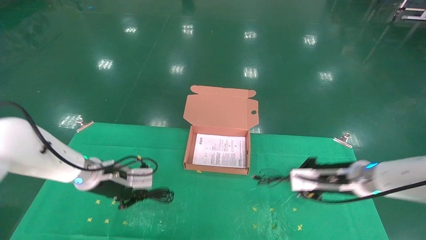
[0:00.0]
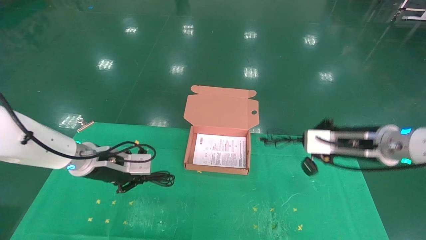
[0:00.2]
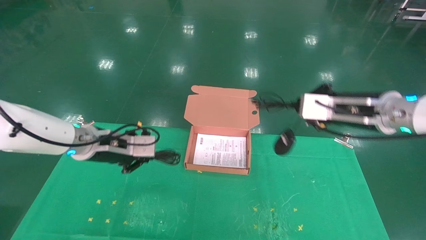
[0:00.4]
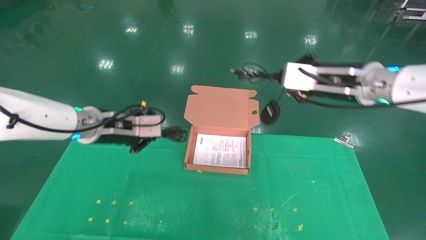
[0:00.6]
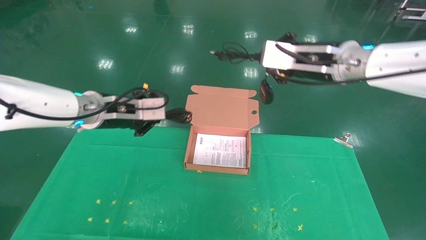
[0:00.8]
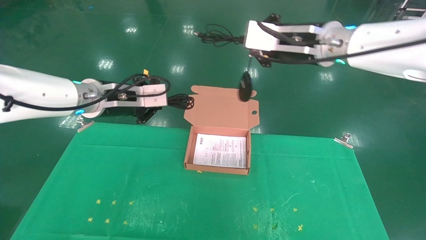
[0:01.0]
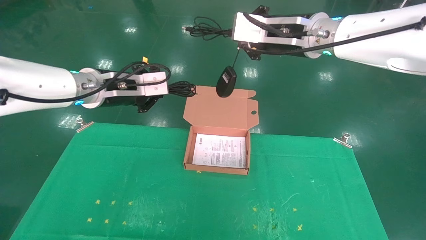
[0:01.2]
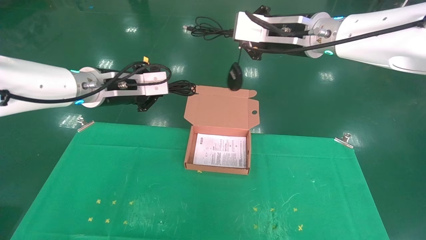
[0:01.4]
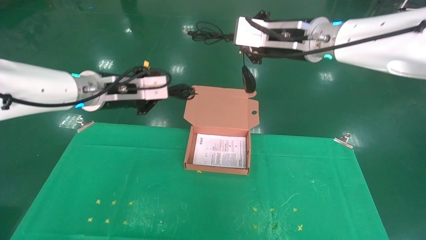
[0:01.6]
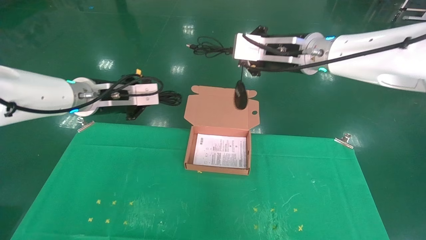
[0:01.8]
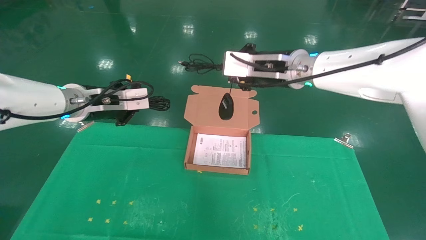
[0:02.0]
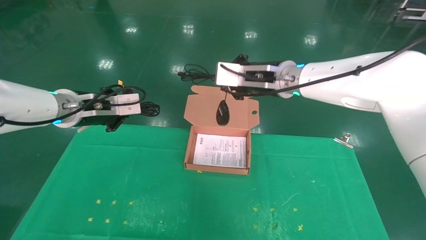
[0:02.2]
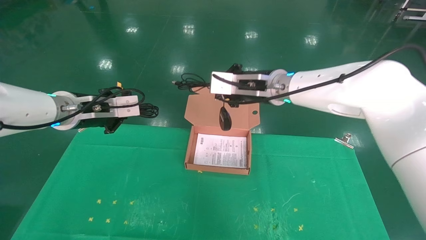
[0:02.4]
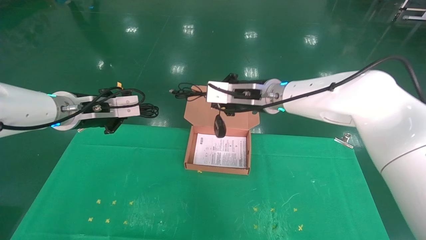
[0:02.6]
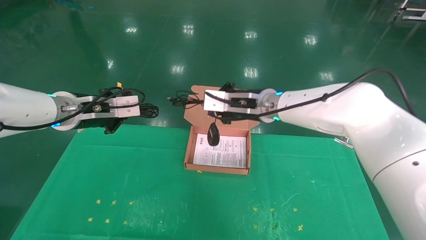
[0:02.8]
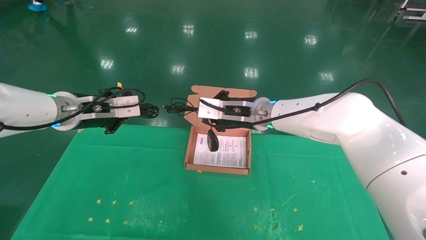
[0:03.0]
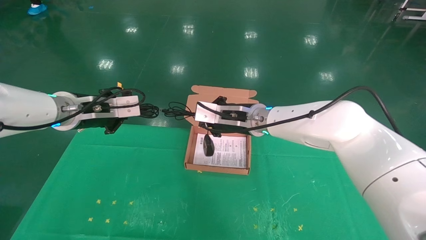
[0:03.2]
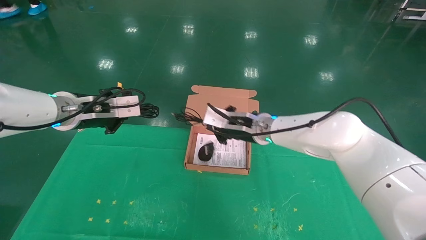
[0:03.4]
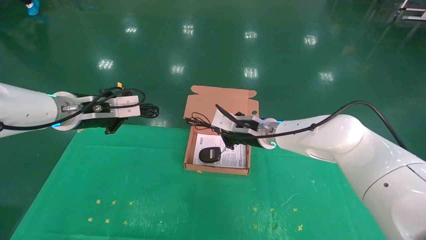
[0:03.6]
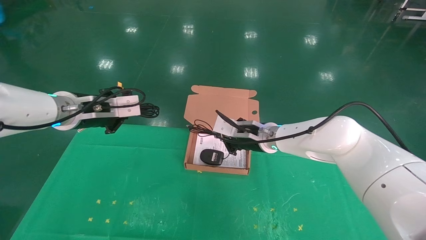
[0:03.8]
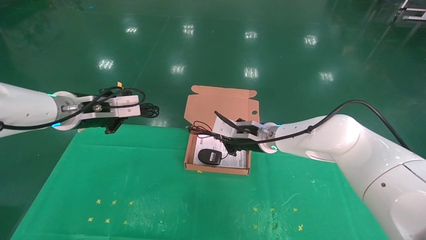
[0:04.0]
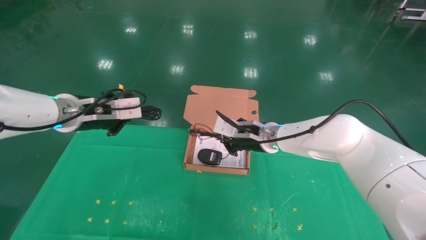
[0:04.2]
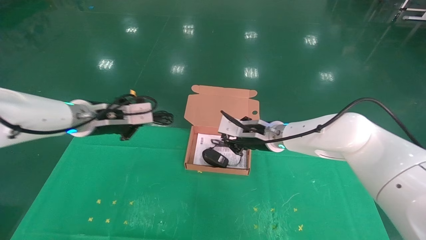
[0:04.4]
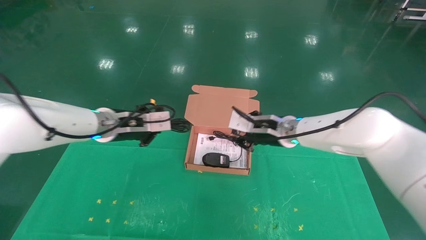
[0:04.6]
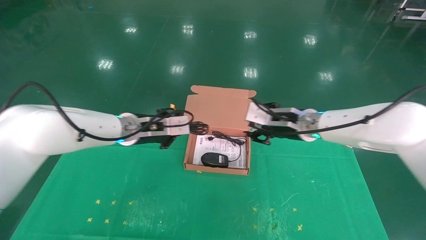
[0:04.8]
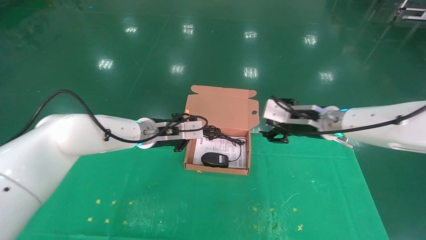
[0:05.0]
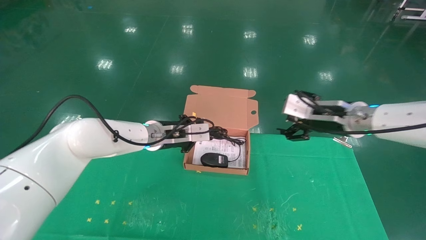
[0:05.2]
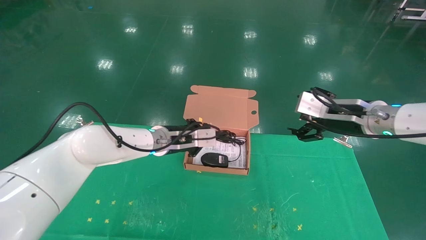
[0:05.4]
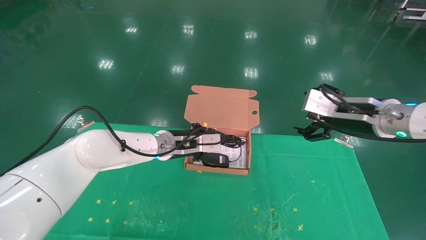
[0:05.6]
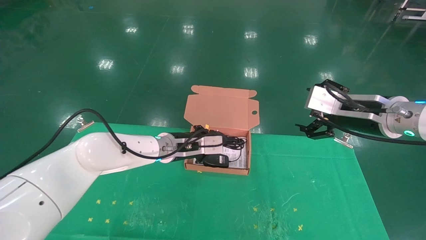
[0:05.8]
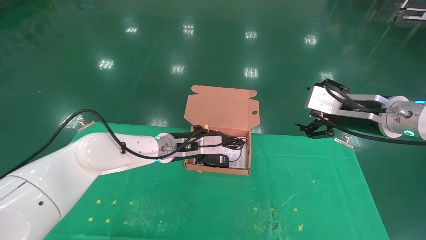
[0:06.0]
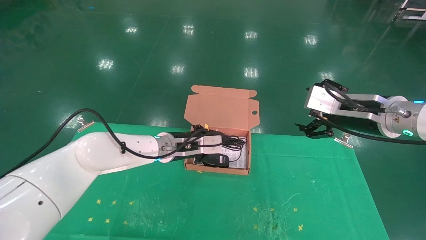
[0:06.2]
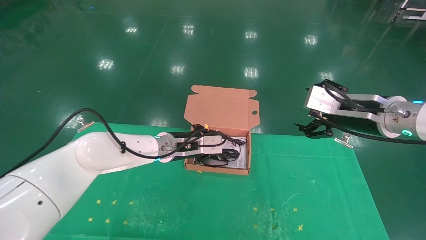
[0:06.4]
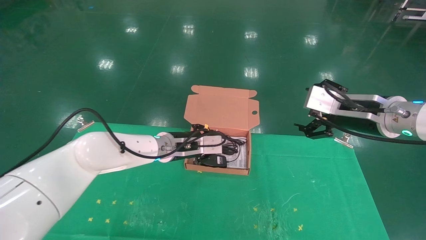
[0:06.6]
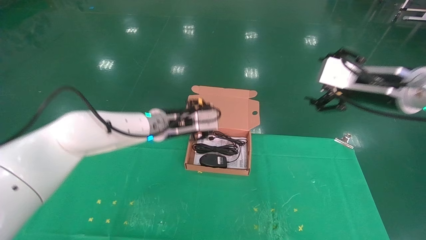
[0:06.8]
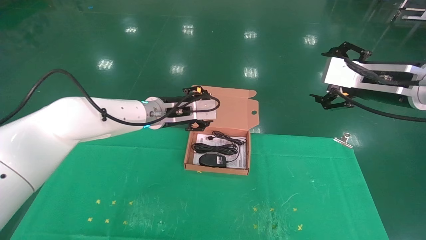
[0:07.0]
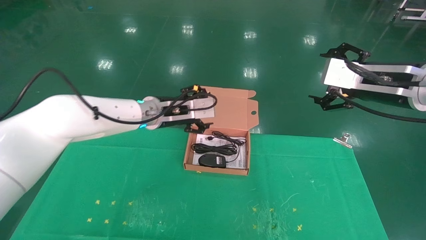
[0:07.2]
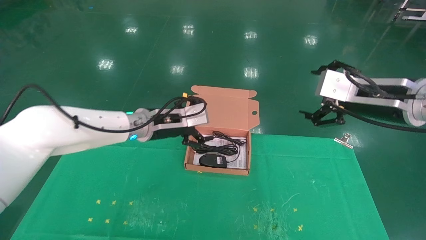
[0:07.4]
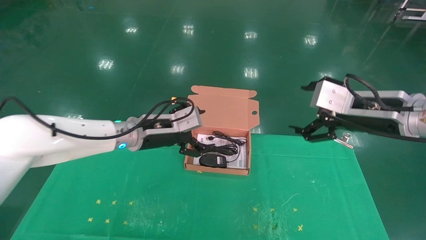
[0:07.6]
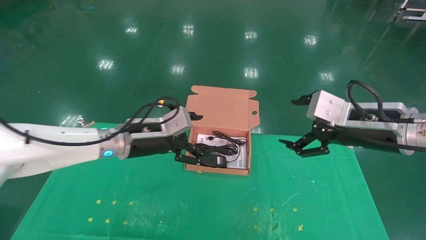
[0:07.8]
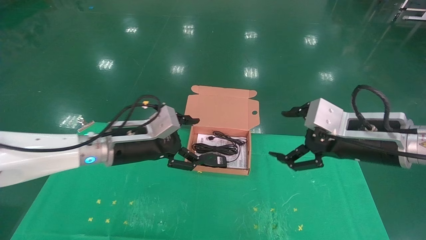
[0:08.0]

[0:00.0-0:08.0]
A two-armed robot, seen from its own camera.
Task of the whole recording: grasp data cable left put into box grasp mouse right put into box.
Step, 0:00.0 to 0:06.4: Place the mouse and power cord into the box.
0:00.0 to 0:01.6: The right gripper is displaced upward and to the left by approximately 25 cm; the left gripper is displaced upward by roughly 15 cm.
0:01.6 to 0:03.2: The right gripper heads downward and to the left, covering roughly 15 cm.
0:03.2 to 0:04.8: The left gripper is displaced to the right, forward and downward by approximately 15 cm; the right gripper moves to the right, roughly 10 cm, and opens.
0:04.8 to 0:06.4: The left gripper moves to the right and downward, some 10 cm, while the right gripper heads to the right and backward, covering approximately 15 cm, and opens its fingers.
0:06.4 to 0:08.0: The right gripper moves backward, roughly 5 cm, and travels upward and back again, roughly 5 cm each way, while the left gripper travels backward and to the left by roughly 15 cm, and opens its fingers.

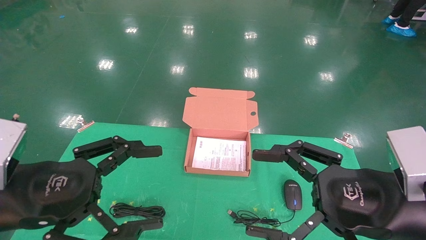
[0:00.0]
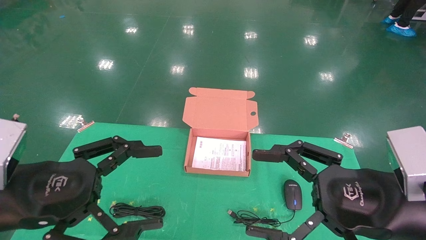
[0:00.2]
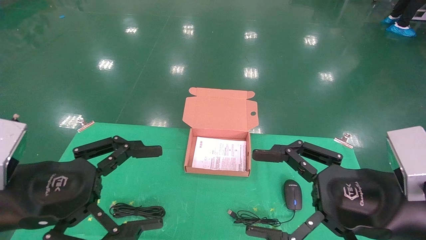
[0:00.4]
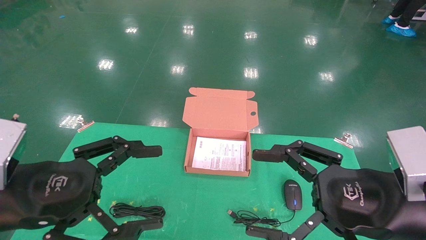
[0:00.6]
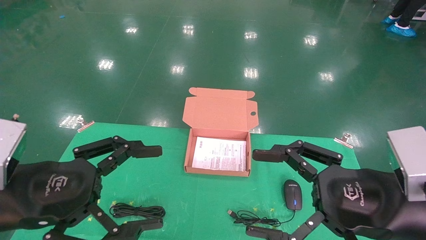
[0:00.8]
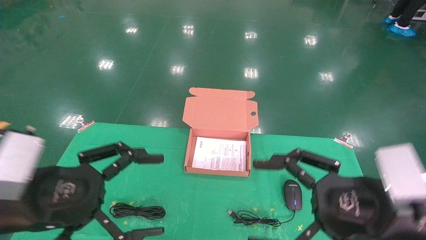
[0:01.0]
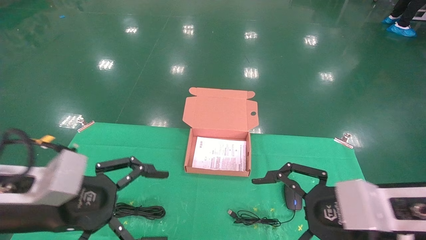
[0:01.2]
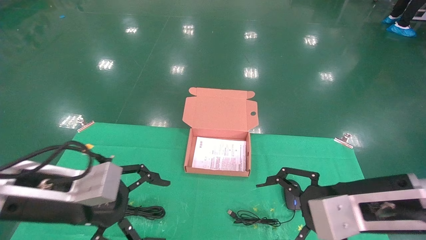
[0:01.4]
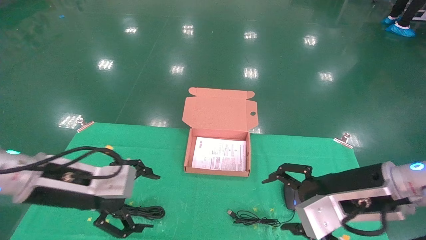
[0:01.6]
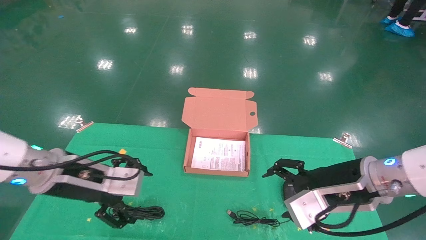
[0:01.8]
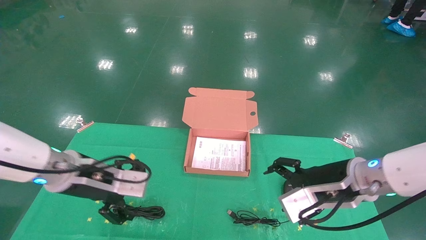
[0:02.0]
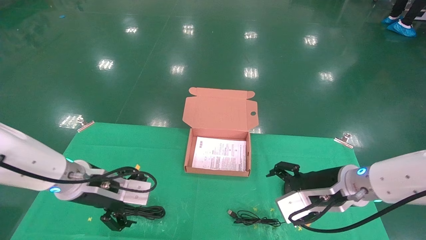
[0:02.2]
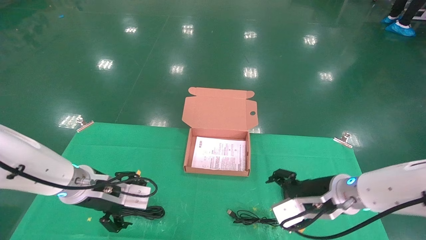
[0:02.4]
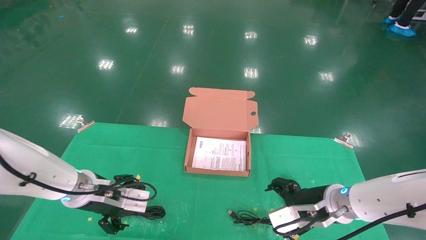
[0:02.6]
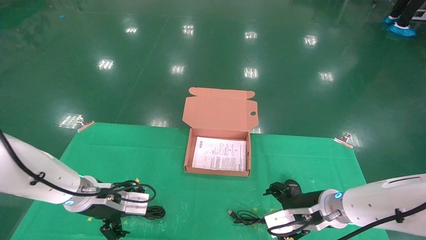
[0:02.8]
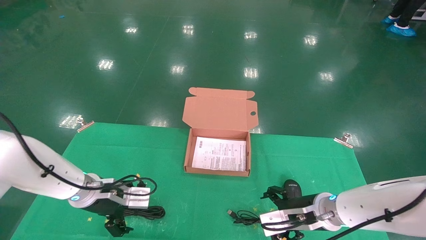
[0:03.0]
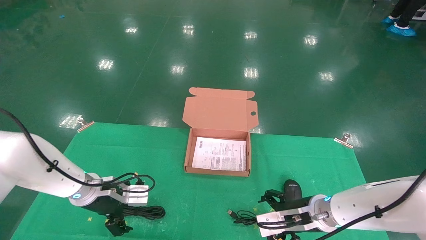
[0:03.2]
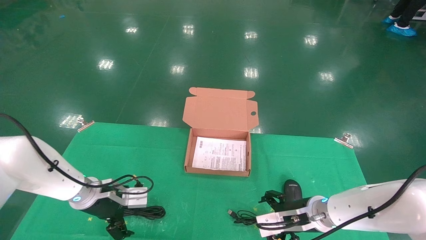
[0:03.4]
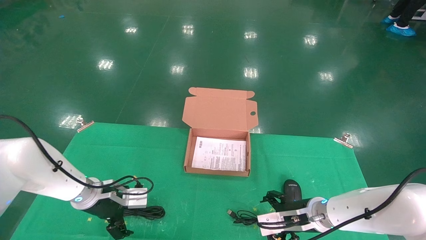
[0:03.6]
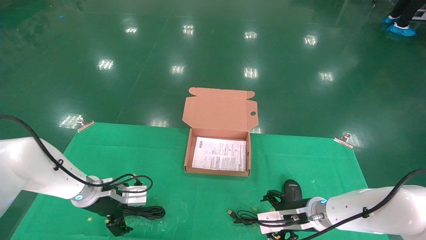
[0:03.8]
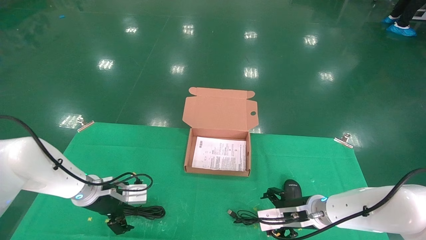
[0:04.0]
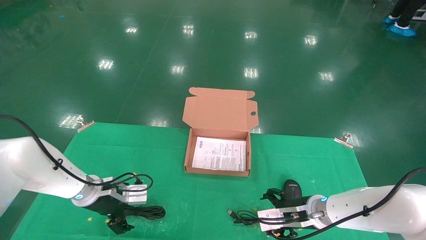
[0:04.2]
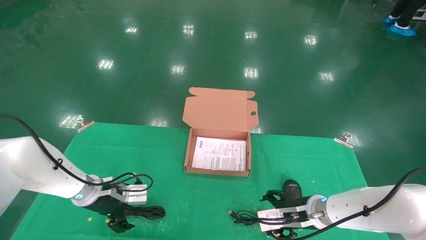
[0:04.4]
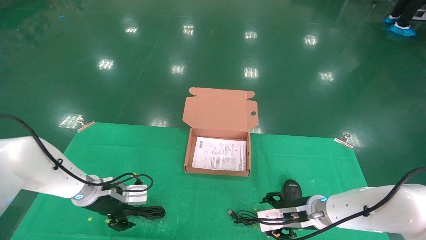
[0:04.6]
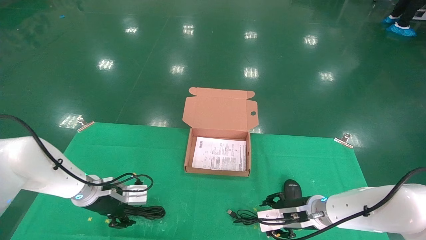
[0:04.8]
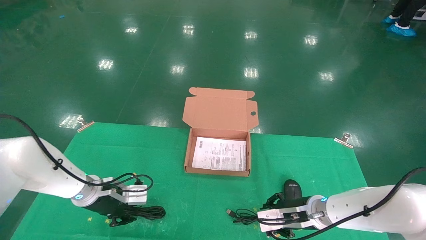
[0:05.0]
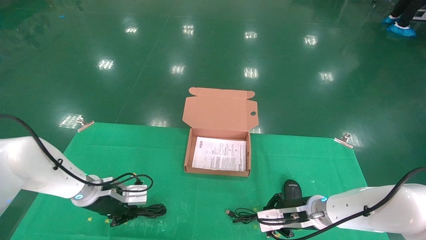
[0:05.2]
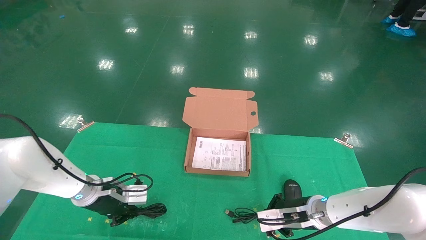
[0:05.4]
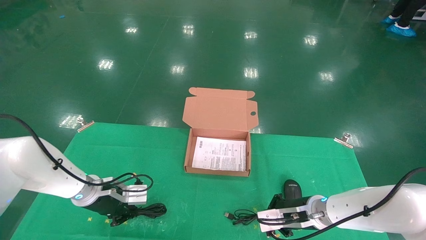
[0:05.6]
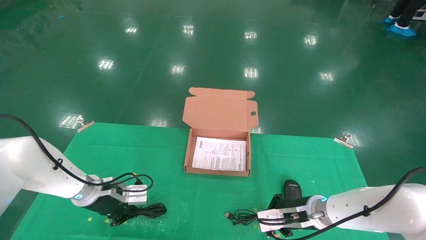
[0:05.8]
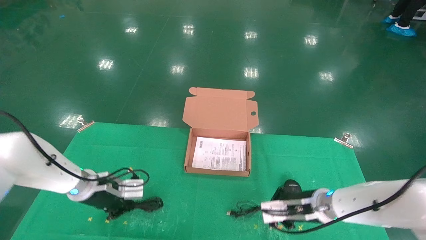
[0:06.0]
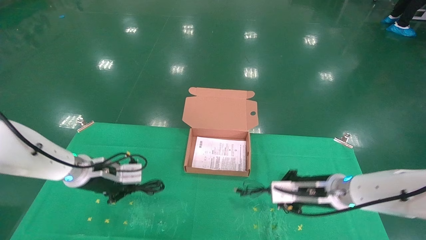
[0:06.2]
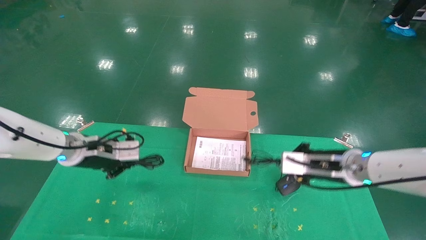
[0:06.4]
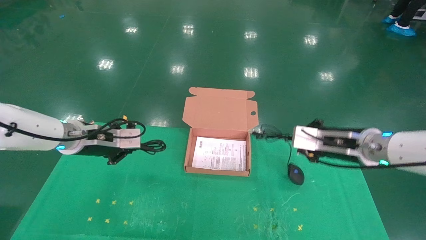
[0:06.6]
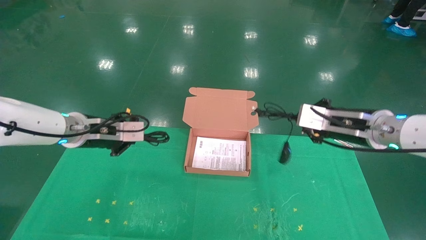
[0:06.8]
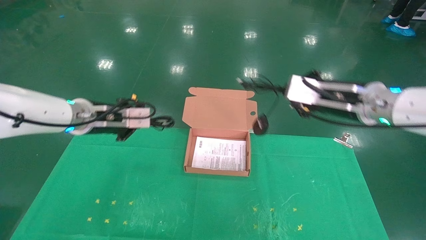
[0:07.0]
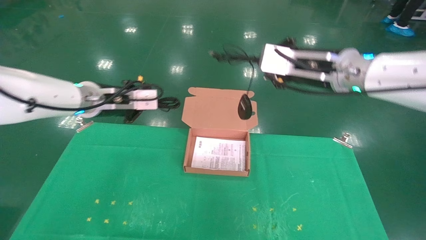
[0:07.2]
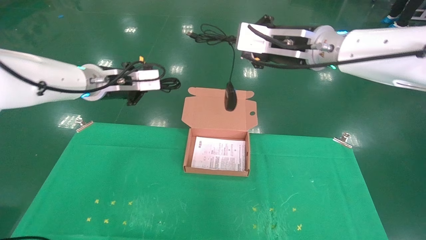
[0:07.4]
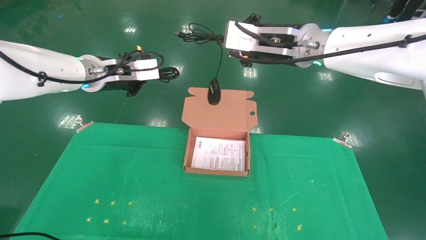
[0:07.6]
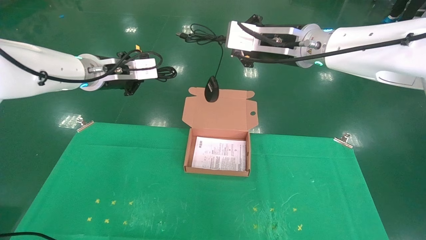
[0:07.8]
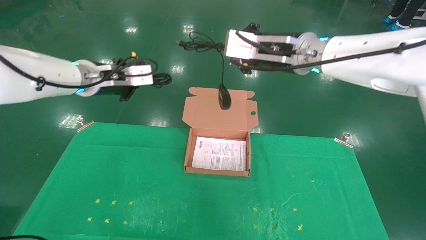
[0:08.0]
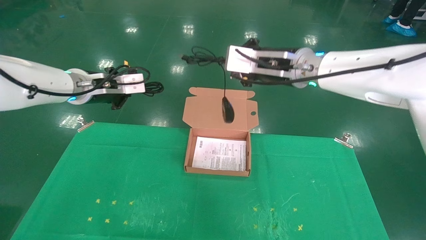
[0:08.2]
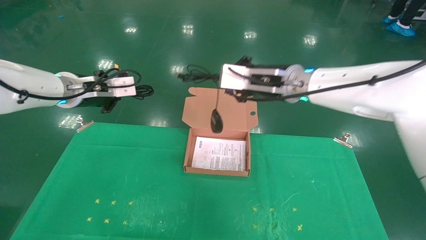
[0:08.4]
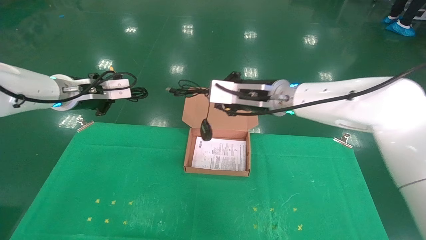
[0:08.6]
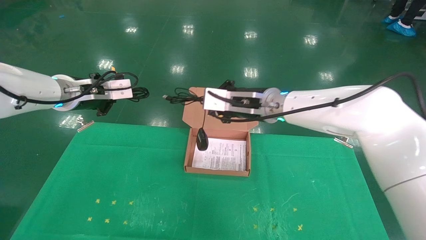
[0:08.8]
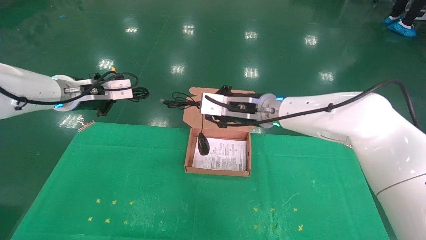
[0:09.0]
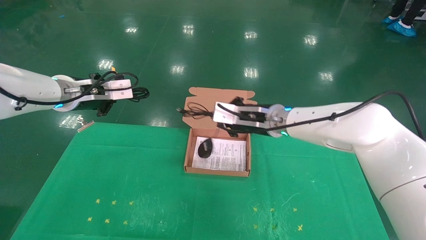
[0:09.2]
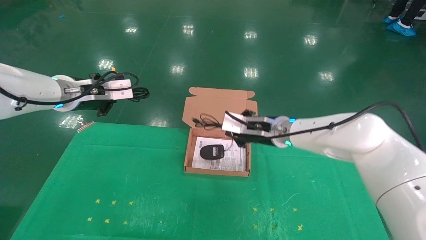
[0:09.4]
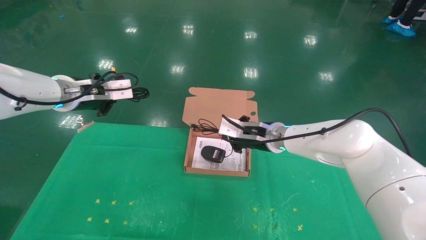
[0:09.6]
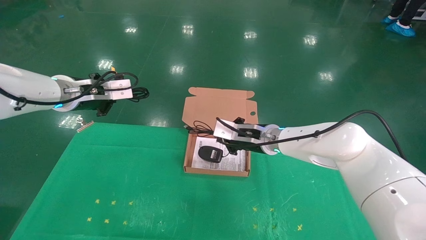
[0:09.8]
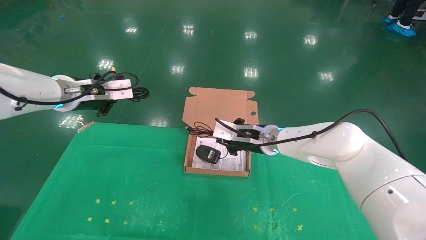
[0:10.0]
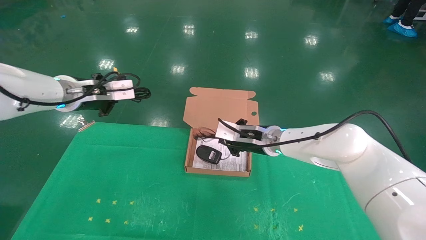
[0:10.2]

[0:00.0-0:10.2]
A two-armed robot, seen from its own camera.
Task of the whole recording: grasp data cable left put into box grasp mouse right put into box.
Step, 0:01.0 to 0:05.2: Grab and pick up both the mouse and power cord from the accessory packaging area at the same time.
0:00.0 to 0:01.4: Both grippers move forward, roughly 5 cm.
0:01.4 to 0:03.0: The right gripper shifts approximately 15 cm downward and forward. The left gripper heads forward and downward, covering approximately 20 cm.
0:03.0 to 0:04.4: The grippers make only small movements.
0:04.4 to 0:05.8: The left gripper closes; the right gripper closes up.
0:05.8 to 0:07.2: Both grippers move upward, roughly 25 cm.
0:07.2 to 0:08.8: The right gripper goes roughly 15 cm to the left, downward and forward.
0:08.8 to 0:10.2: The right gripper travels downward by about 10 cm.
